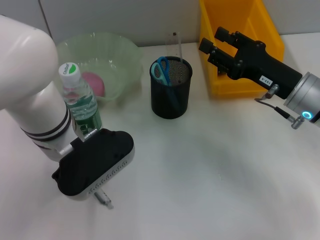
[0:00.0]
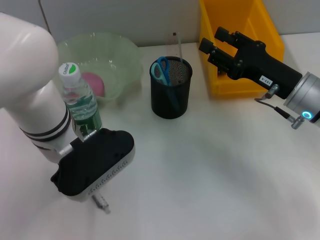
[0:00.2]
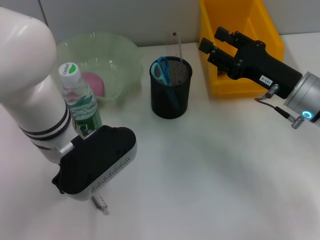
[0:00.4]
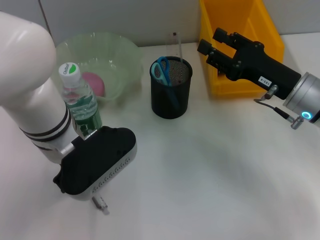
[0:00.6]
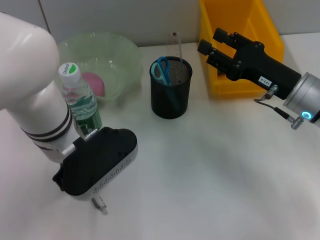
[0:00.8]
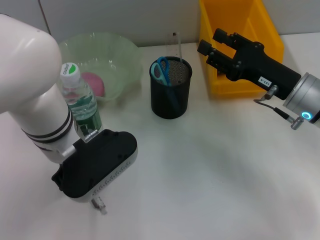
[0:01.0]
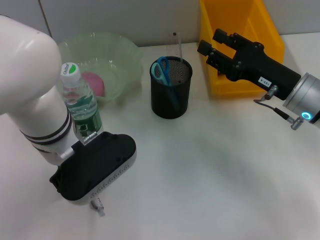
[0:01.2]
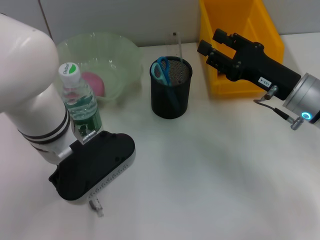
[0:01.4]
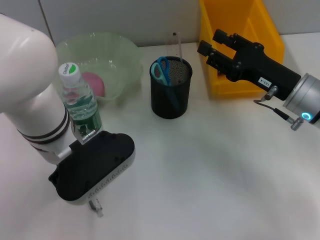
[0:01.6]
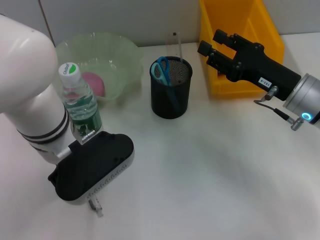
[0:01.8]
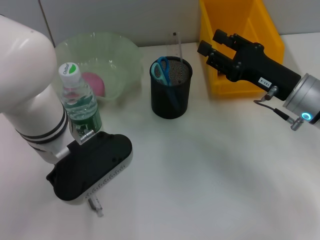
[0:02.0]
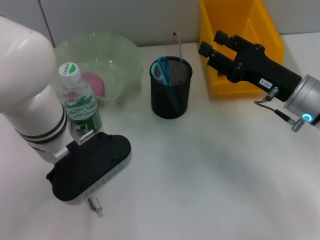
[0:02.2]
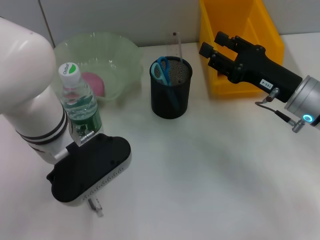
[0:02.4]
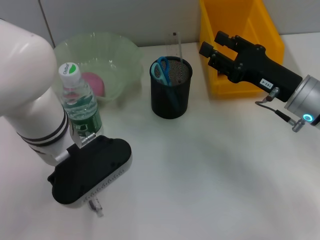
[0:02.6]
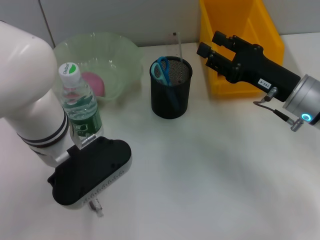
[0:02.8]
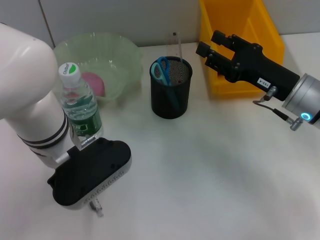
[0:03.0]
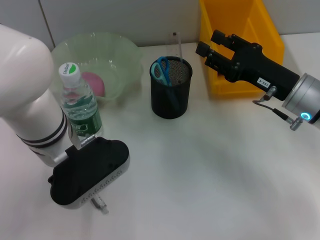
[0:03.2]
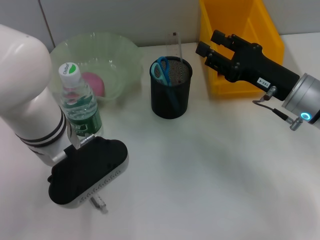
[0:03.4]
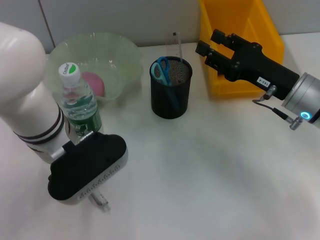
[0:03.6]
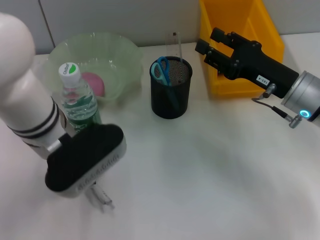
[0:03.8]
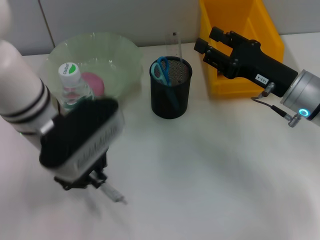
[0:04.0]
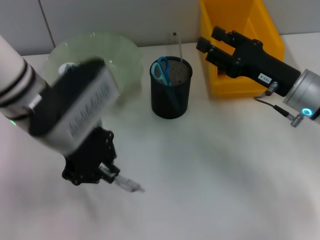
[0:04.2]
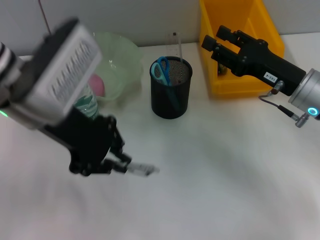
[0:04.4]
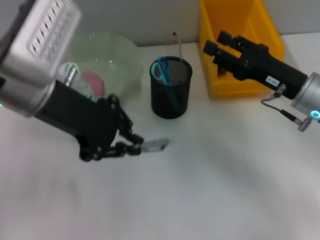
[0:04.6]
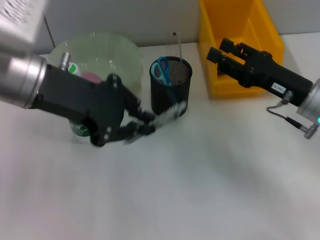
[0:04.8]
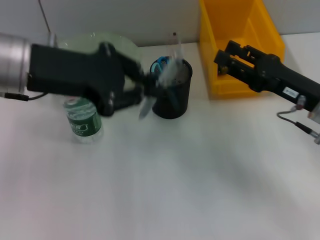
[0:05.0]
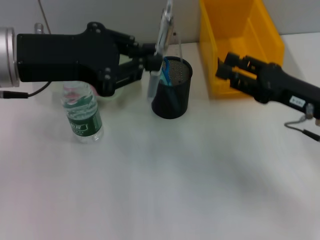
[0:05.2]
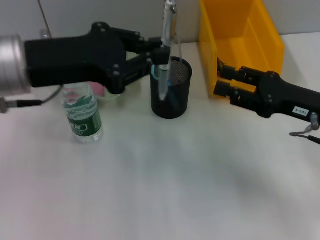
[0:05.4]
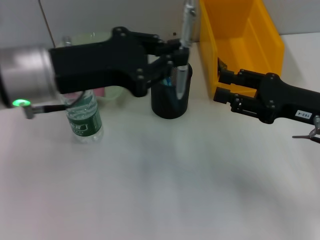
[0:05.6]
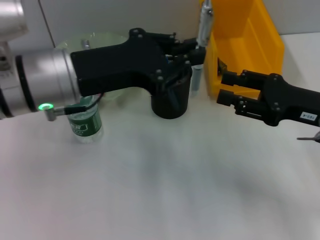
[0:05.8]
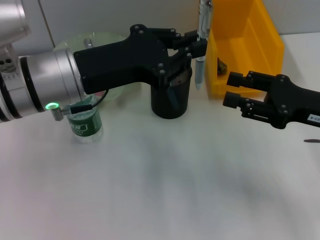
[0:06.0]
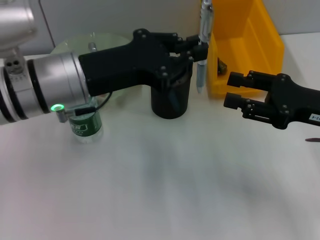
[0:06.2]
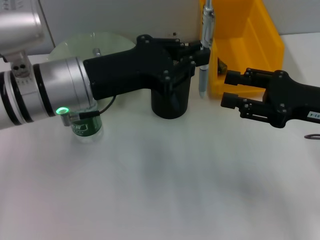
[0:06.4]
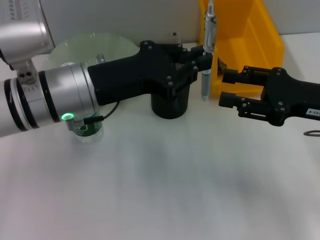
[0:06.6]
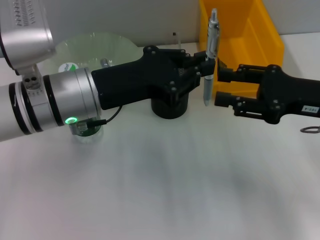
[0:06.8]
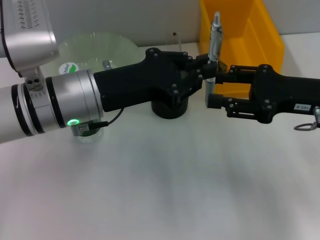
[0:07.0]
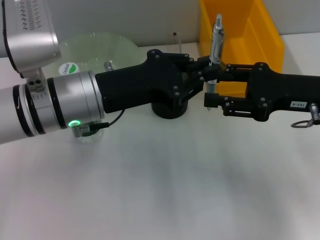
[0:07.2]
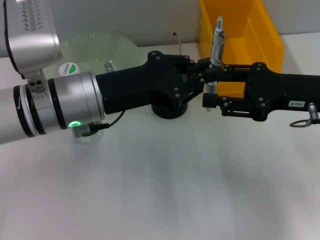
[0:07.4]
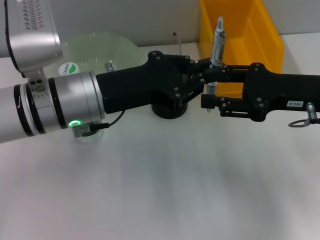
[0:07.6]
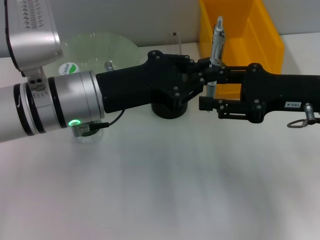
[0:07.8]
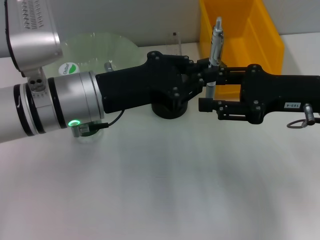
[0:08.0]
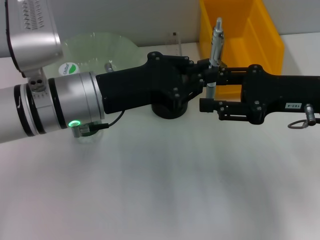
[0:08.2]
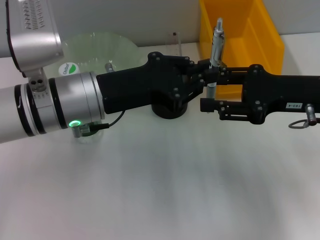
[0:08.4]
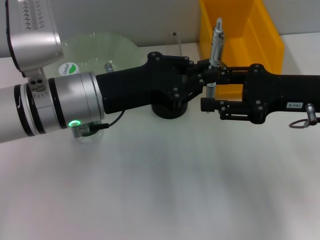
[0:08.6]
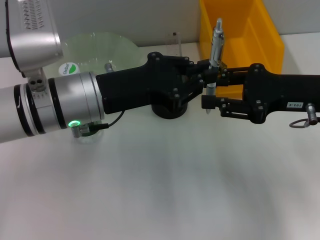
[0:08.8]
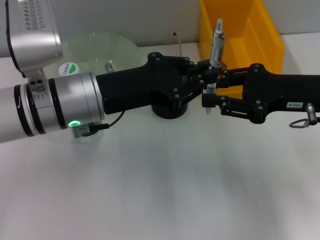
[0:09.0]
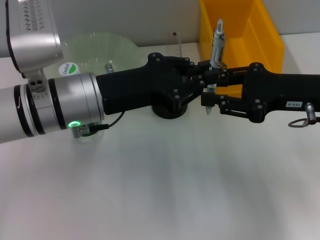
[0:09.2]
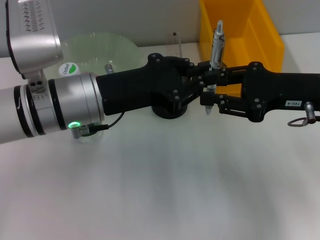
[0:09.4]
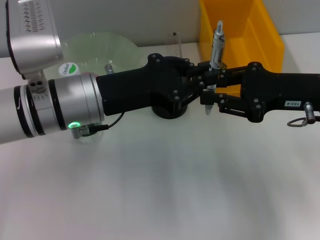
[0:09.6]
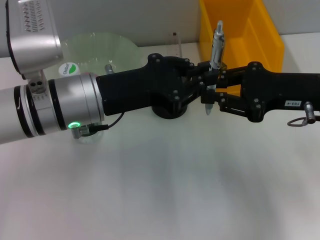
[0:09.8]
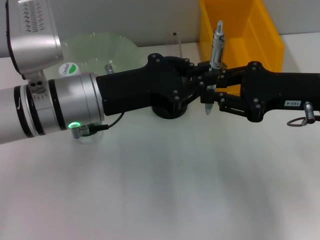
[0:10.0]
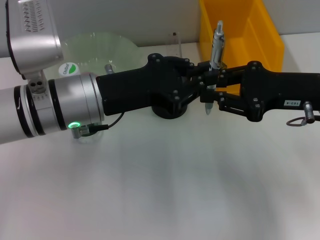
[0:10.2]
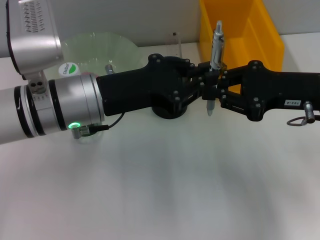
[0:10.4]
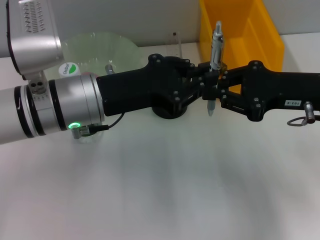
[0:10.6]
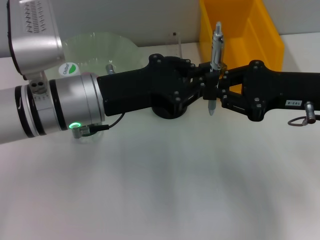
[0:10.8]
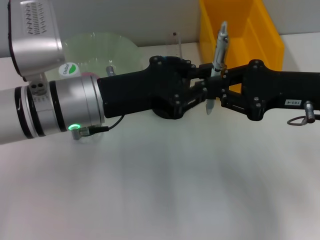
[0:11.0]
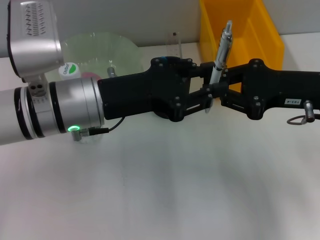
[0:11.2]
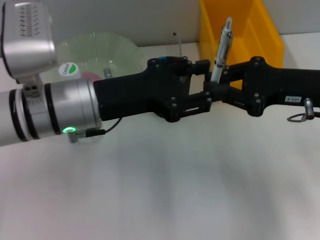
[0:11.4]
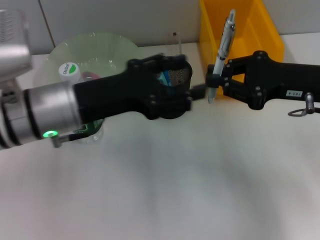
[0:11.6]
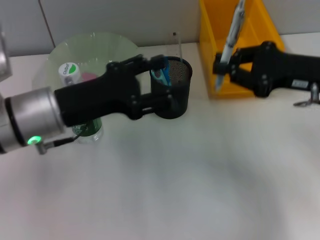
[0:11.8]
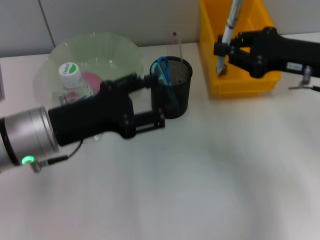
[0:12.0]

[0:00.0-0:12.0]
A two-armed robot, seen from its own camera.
Step, 0:00.0 to 0:03.2: Grab the gray spring-action pen with the left hand.
Step, 0:03.4 to 0:11.2: Pass the gray spring-action pen from the left hand to the right hand.
0:00.0 to 0:03.0: The two grippers keep their place.
0:03.0 to 0:04.4: The left gripper goes approximately 10 cm upward.
0:04.4 to 0:06.0: The right gripper ends up roughly 5 cm from where it was.
0:07.6 to 0:09.0: The two grippers keep their place.
0:09.0 to 0:10.4: The right gripper closes.
0:10.4 to 0:12.0: The left gripper heads to the left, covering about 5 cm, and opens.

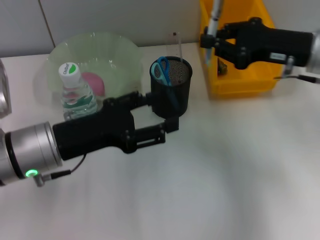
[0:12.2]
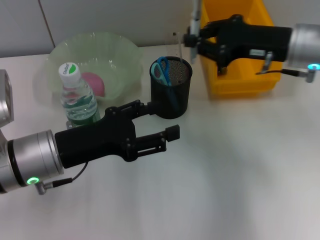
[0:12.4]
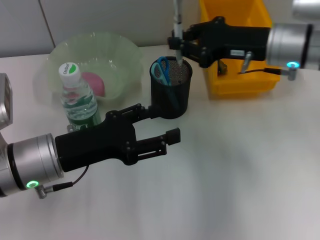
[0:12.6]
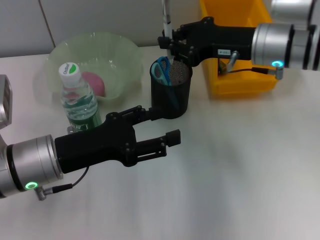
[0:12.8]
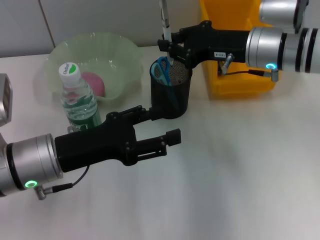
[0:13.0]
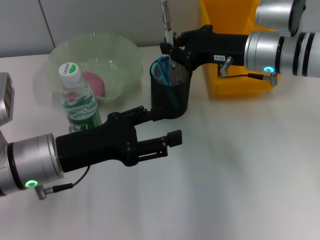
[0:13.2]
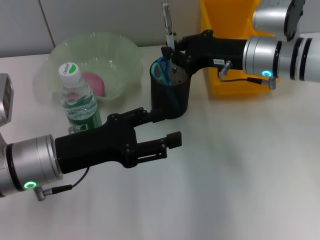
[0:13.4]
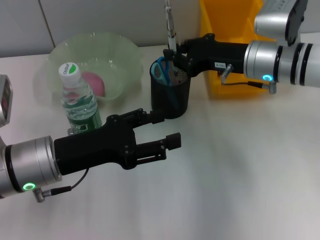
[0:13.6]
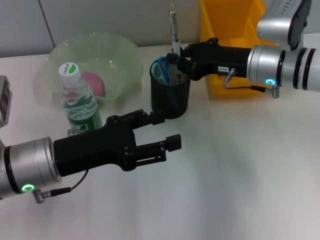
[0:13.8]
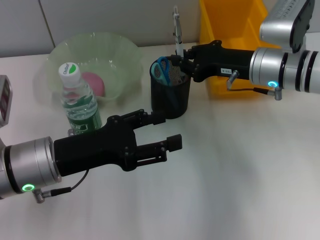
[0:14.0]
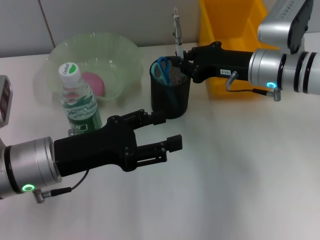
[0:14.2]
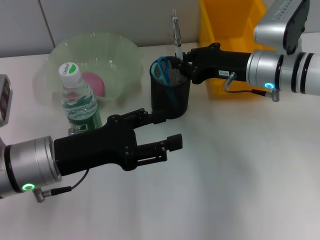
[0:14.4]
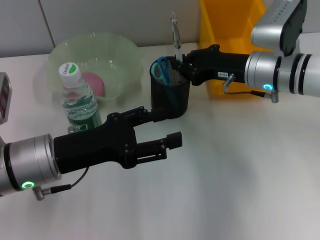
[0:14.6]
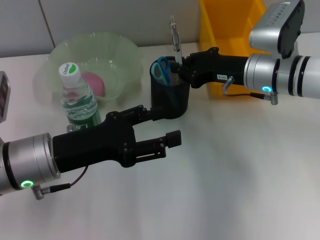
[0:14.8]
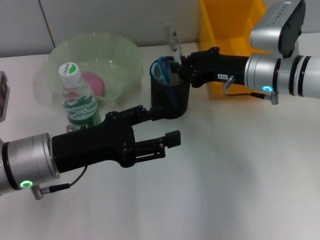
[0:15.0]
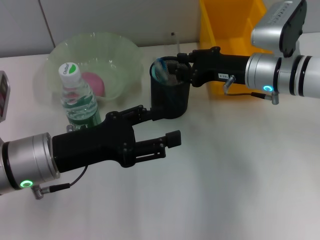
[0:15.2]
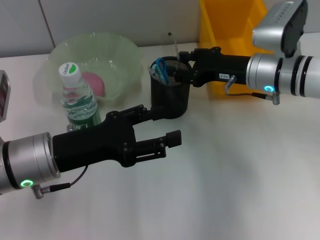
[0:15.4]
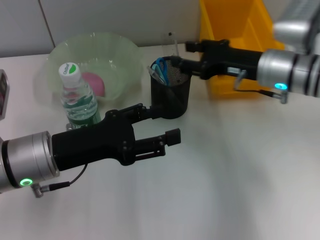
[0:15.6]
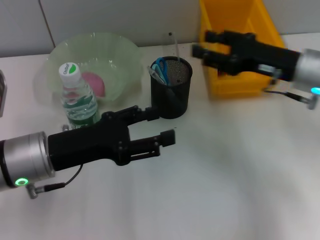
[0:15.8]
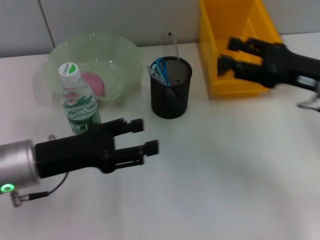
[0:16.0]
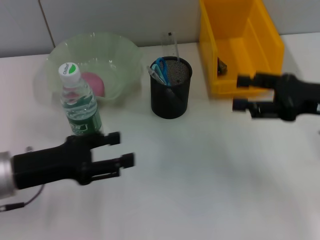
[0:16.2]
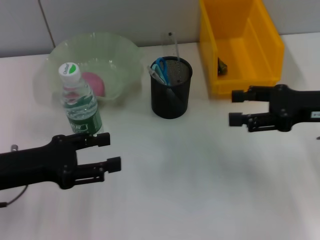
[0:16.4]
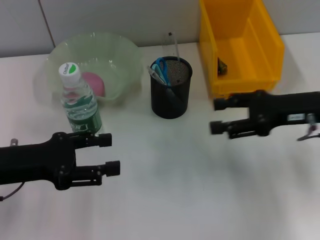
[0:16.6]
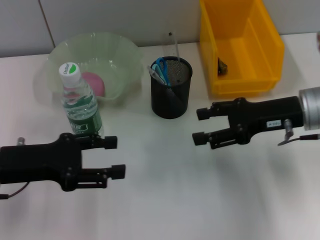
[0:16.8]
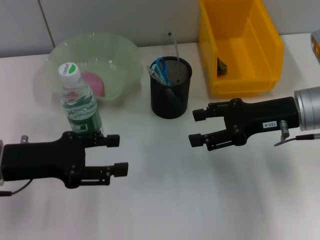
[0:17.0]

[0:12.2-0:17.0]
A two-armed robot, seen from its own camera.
Step, 0:12.2 to 0:15.2: Place the gray spring-action pen into the pen holder with the right hand.
0:12.2 to 0:13.8: The right gripper goes roughly 5 cm to the left.
0:13.8 to 0:15.4: Both grippers stay about where they are.
0:15.4 to 0:17.0: The right gripper heads backward, covering approximately 5 cm, and opens; the left gripper travels to the left by some 5 cm.

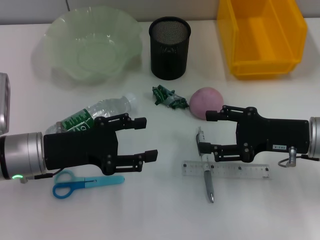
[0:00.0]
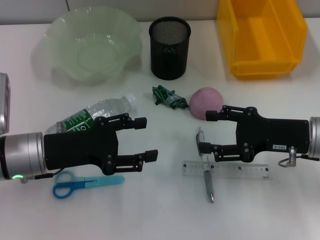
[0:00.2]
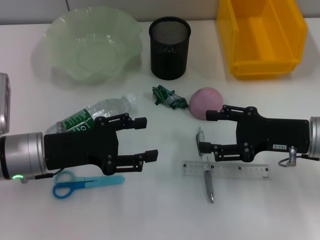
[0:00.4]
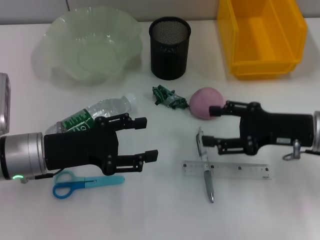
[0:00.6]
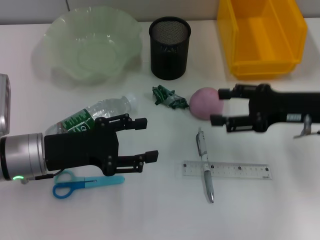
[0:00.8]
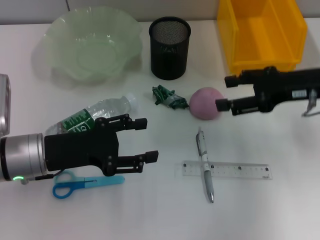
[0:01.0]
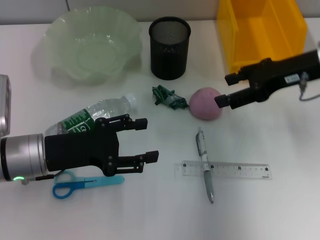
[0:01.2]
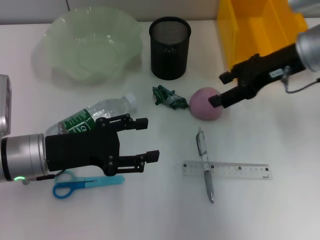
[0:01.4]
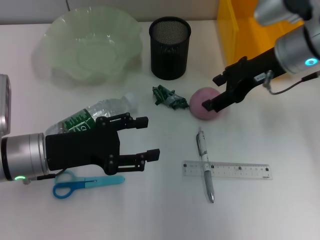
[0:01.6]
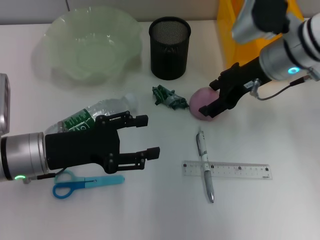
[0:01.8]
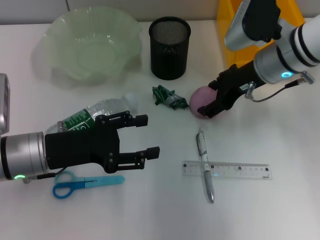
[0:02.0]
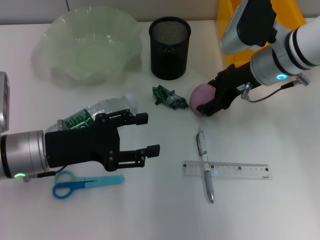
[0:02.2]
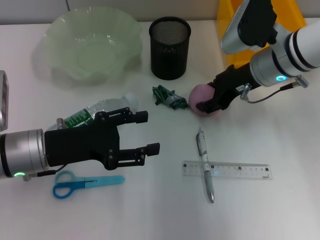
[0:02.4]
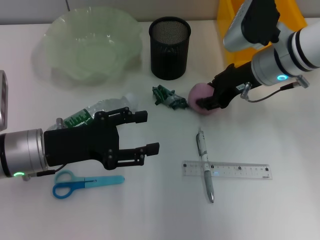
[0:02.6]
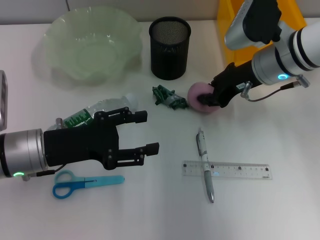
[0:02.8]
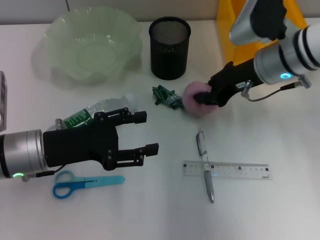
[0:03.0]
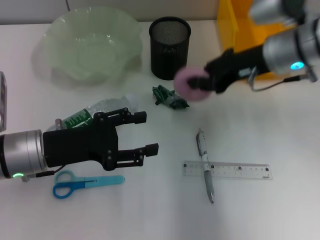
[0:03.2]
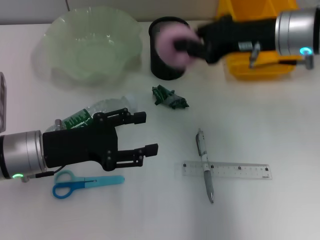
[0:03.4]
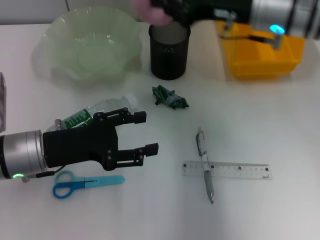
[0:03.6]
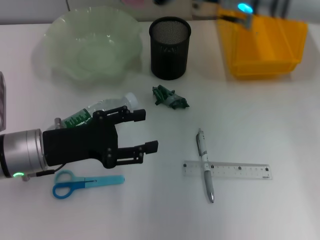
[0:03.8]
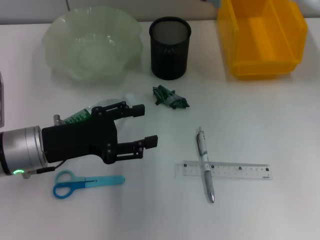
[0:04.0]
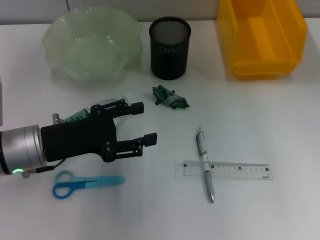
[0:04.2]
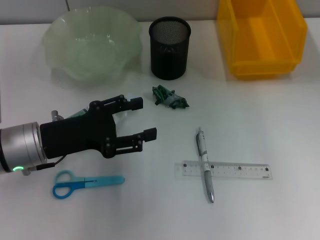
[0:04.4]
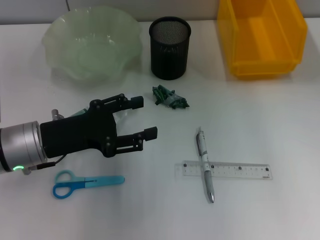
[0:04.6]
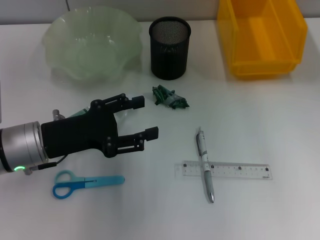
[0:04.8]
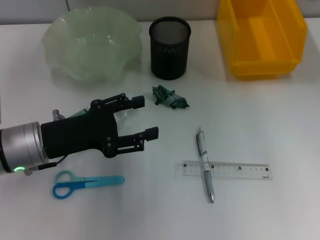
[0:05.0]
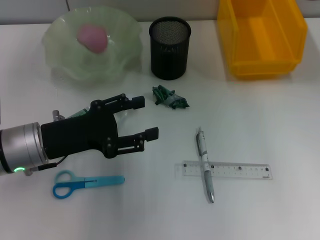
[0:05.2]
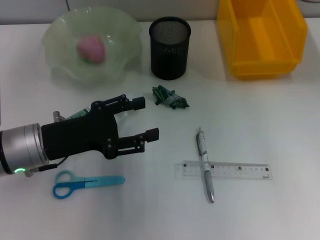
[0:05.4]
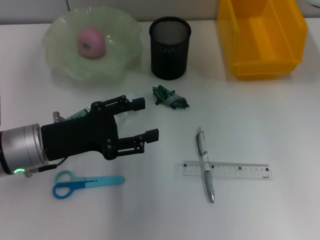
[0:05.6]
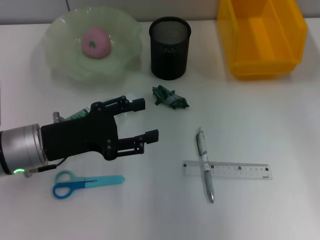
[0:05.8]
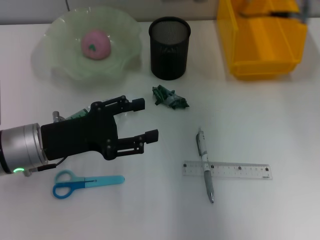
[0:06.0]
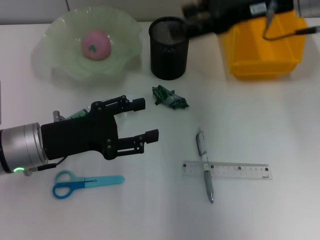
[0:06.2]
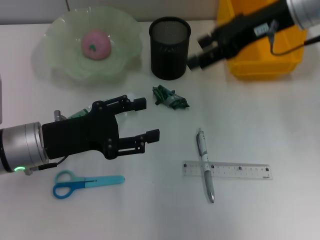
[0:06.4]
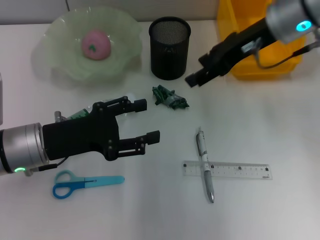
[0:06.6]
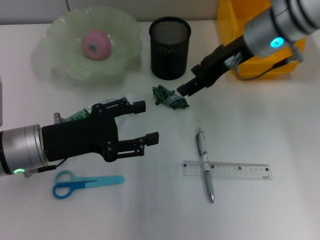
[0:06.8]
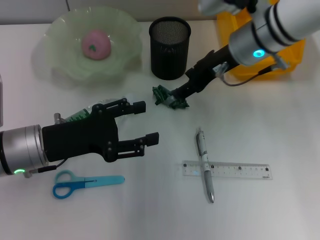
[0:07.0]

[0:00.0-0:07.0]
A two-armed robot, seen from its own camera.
Step, 0:00.0 to 0:02.6: Grab the peach with the right hand.
Step, 0:02.8 to 0:05.6: Place the peach into the fruit bowl with the right hand.
0:00.0 to 0:01.4: The right gripper is displaced upward and forward by some 15 cm.
0:01.4 to 0:02.8: The right gripper moves approximately 5 cm, and closes up.
0:02.8 to 0:04.2: The right gripper goes about 20 cm to the left, upward and forward, and closes.
0:04.2 to 0:05.6: The right gripper opens its fingers.
0:05.6 to 0:07.0: The right gripper heads downward and to the right, covering roughly 10 cm.
